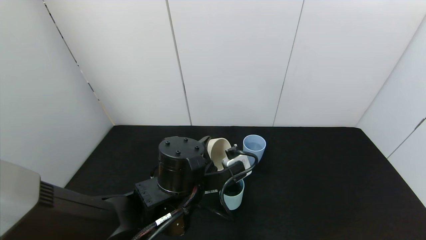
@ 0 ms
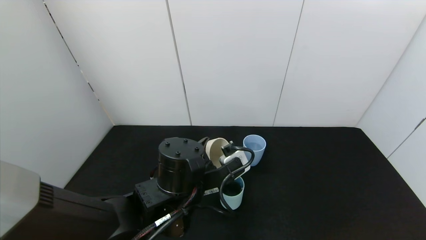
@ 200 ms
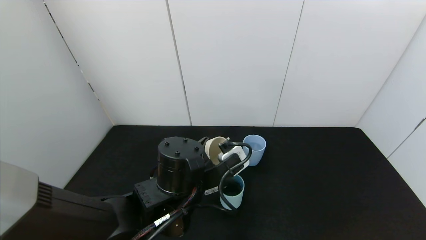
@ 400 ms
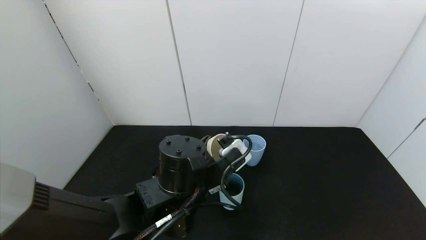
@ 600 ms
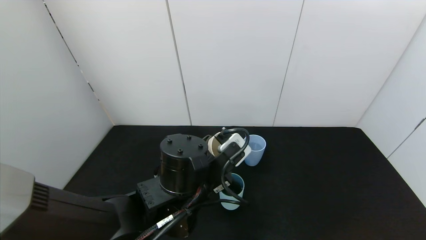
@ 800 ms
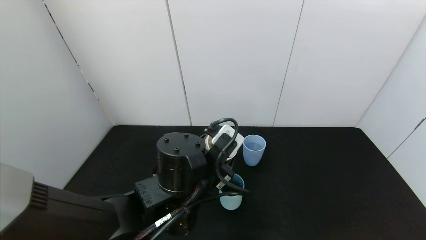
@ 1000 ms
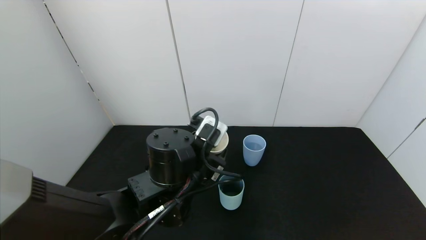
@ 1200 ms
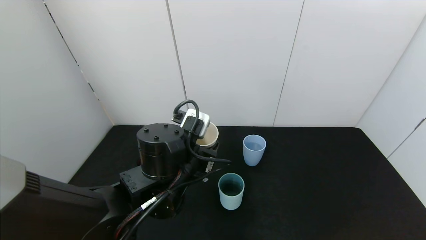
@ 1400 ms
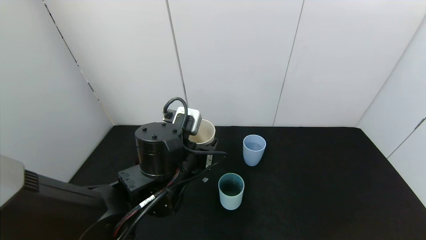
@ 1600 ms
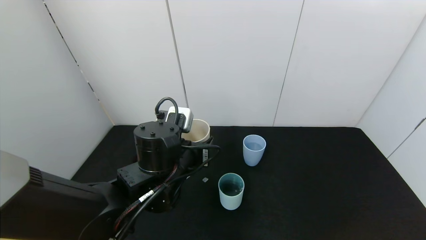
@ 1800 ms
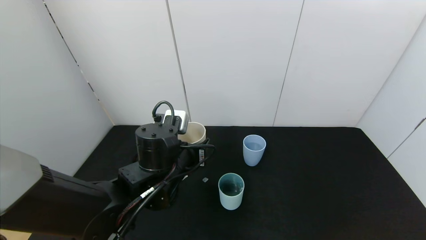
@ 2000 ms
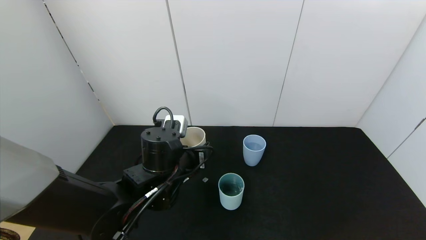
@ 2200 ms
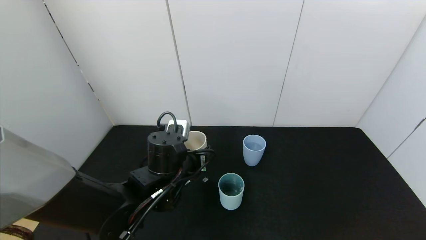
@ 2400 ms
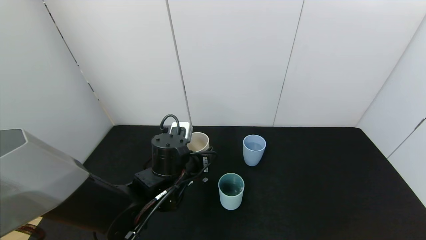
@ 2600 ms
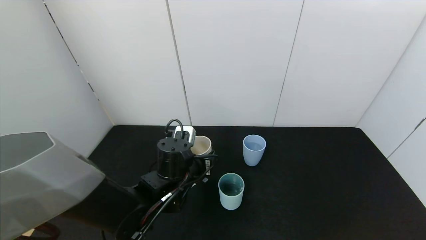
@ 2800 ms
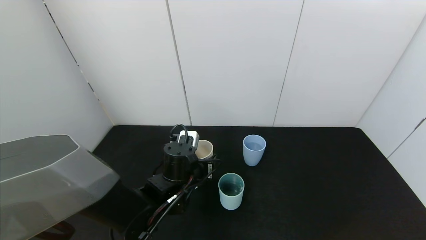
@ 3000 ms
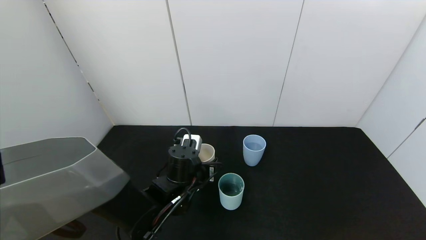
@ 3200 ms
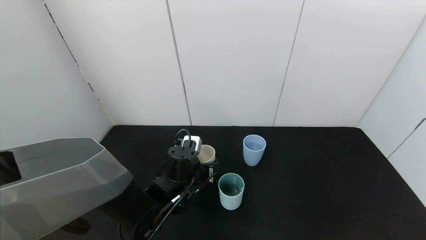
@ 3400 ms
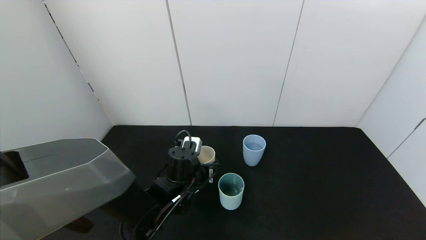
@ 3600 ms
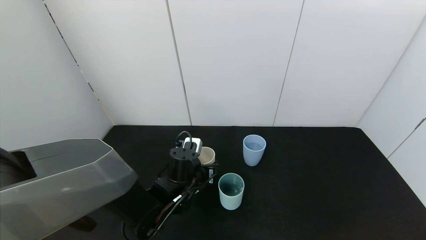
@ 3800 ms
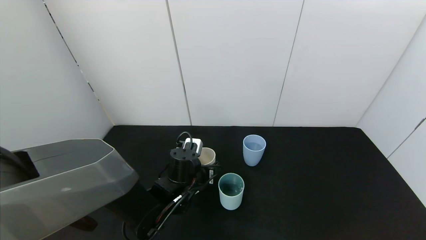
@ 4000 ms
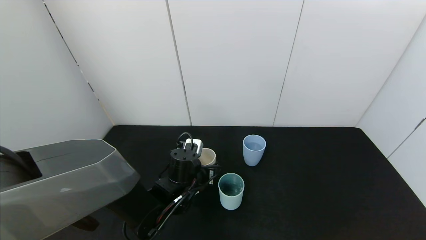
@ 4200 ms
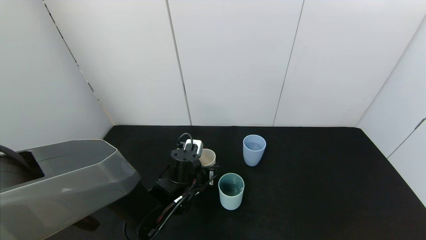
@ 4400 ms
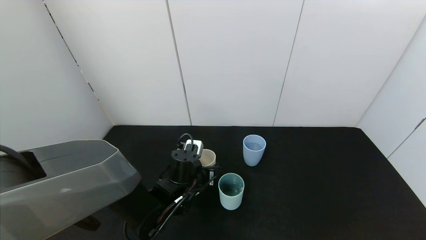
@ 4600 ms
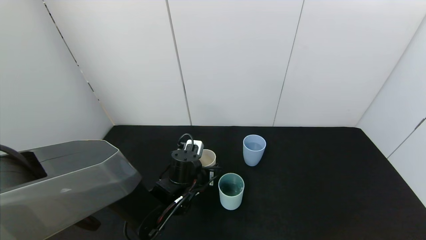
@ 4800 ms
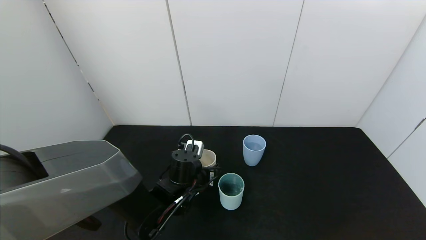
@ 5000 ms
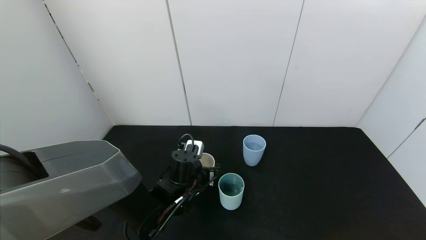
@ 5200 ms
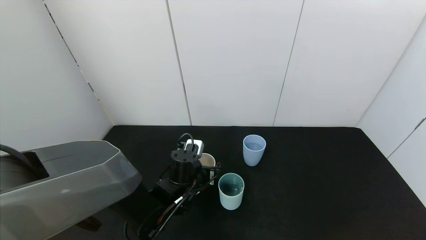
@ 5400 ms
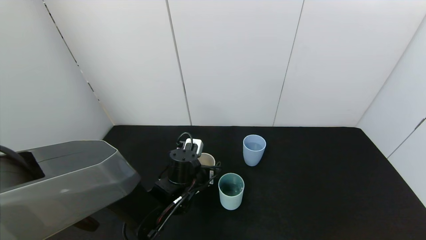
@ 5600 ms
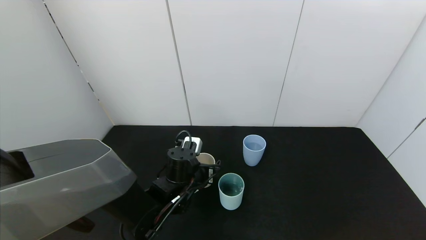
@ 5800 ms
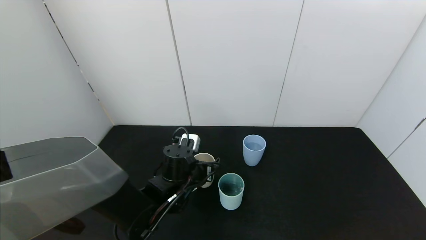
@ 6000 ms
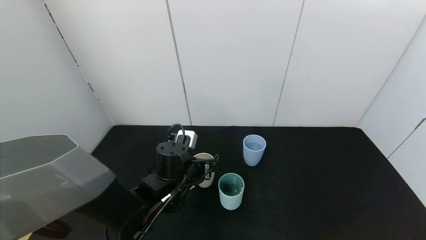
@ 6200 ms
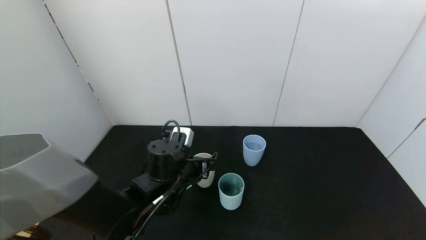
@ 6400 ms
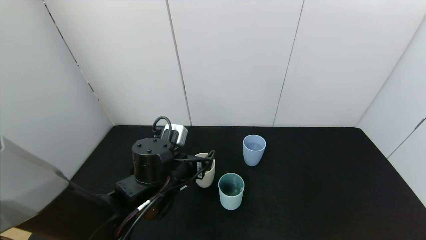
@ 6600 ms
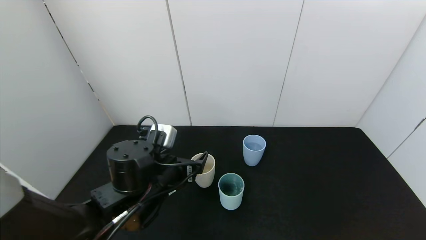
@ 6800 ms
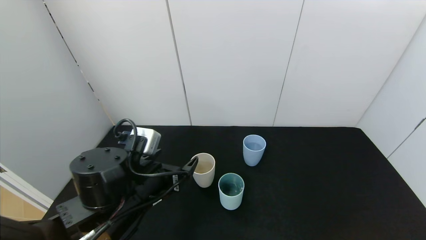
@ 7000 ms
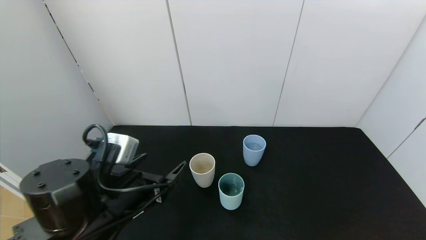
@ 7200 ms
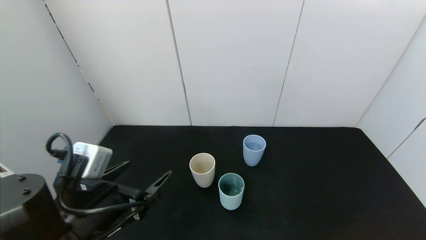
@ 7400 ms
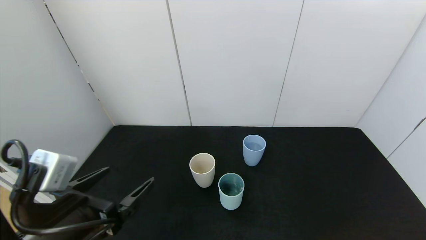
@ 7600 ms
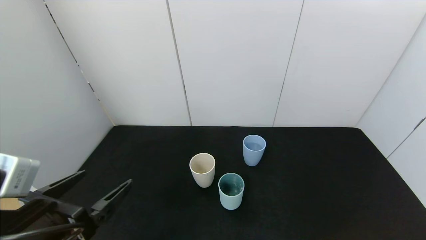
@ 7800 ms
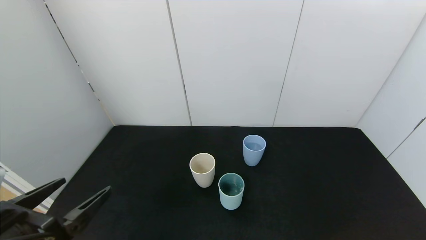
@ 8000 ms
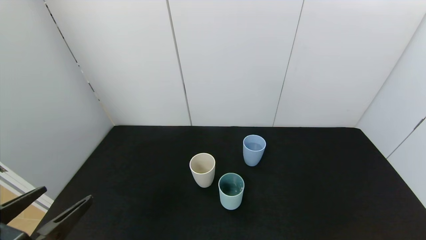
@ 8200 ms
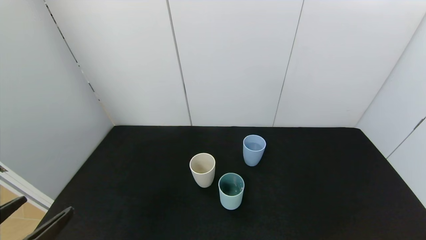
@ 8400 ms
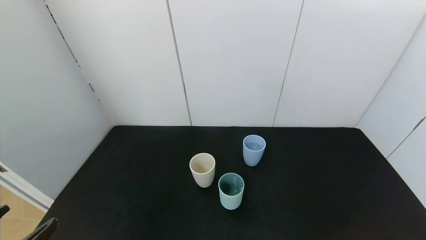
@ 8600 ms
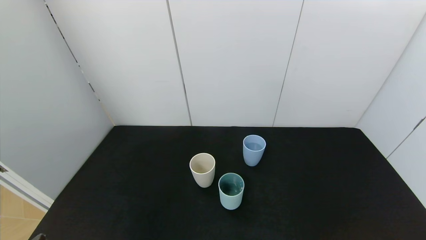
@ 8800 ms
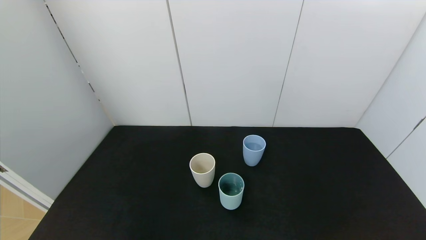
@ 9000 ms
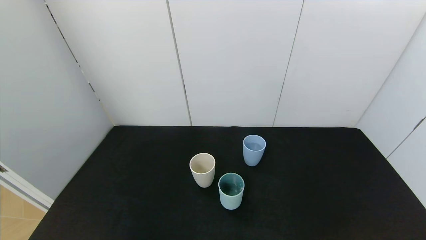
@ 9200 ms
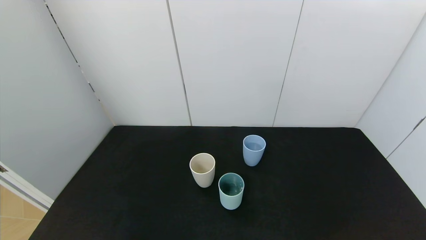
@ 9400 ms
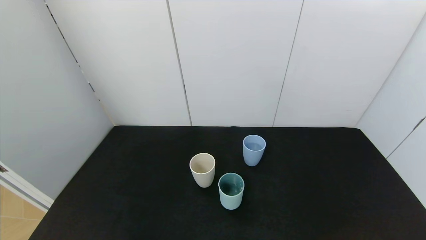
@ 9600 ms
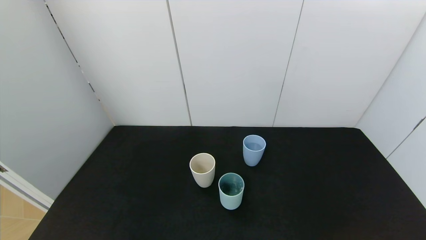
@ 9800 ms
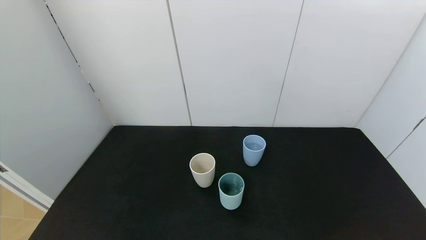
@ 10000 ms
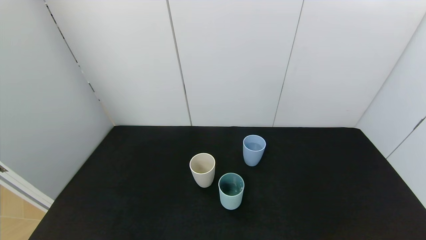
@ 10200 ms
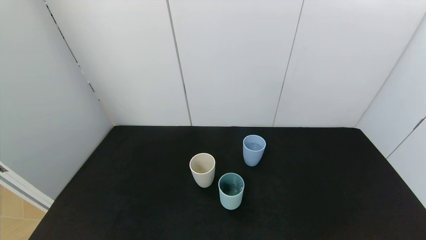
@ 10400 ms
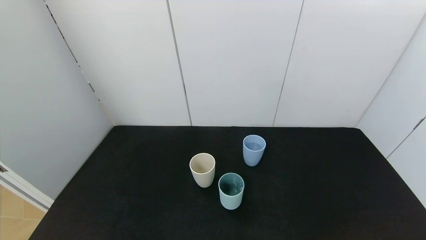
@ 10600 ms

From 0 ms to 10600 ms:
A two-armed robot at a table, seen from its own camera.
Task of the whole recording: use the gripper to pour the water into the other two cups on black table.
Step, from 1400 ms to 7200 ms: Place the white cup with the left gripper.
From 1600 ms to 3000 ms: The left gripper is displaced downward by some 5 cm.
From 3000 ms to 4600 ms: There are only small adjustments of the grippers.
From 4600 ms to 6000 ms: The left gripper opens.
From 6000 ms to 7600 ms: The left gripper travels backward, to the left and upward by some 25 cm.
From 7600 ms to 9000 ms: The left gripper goes roughly 15 cm backward and to the left.
